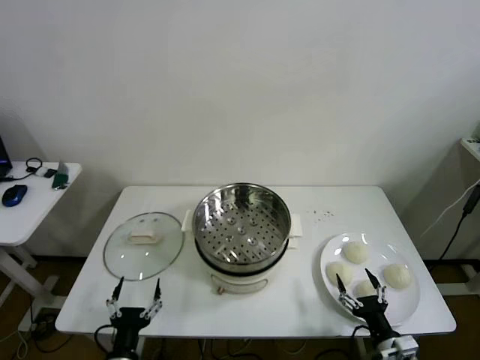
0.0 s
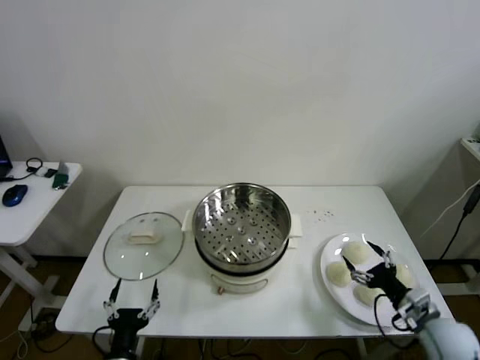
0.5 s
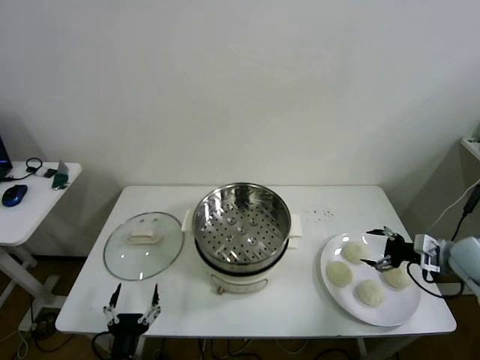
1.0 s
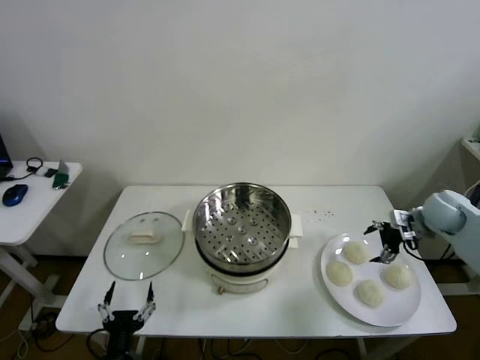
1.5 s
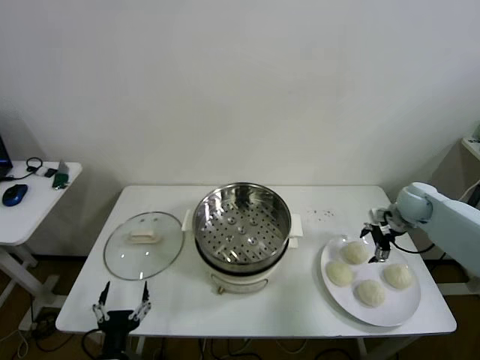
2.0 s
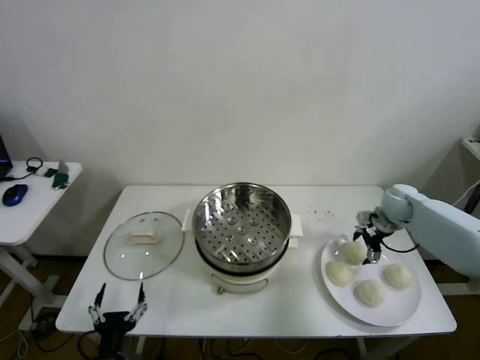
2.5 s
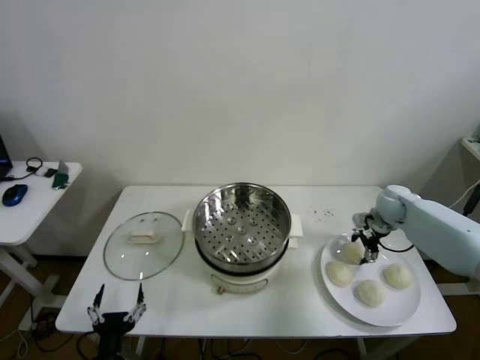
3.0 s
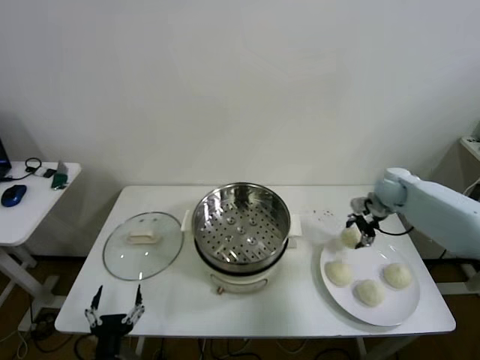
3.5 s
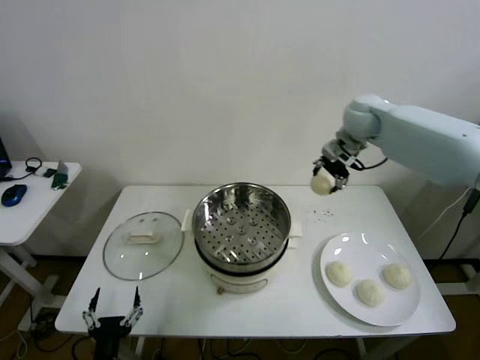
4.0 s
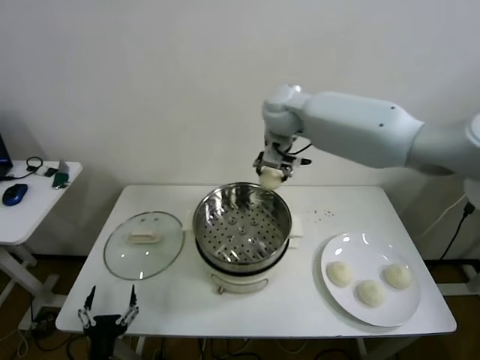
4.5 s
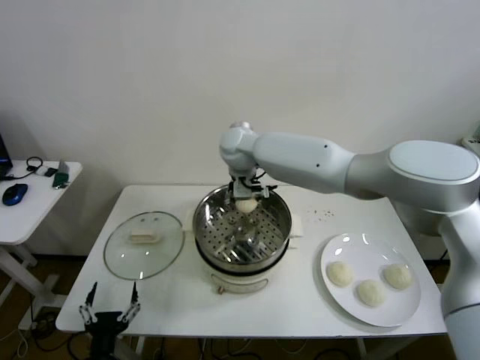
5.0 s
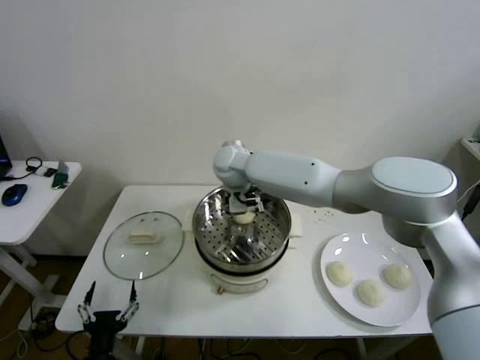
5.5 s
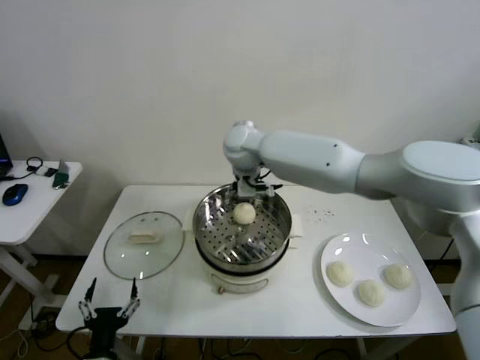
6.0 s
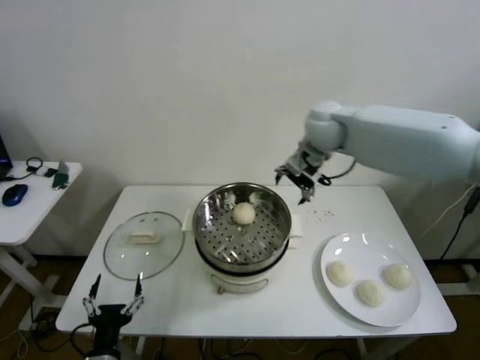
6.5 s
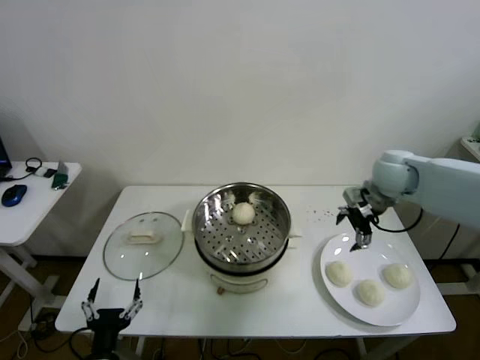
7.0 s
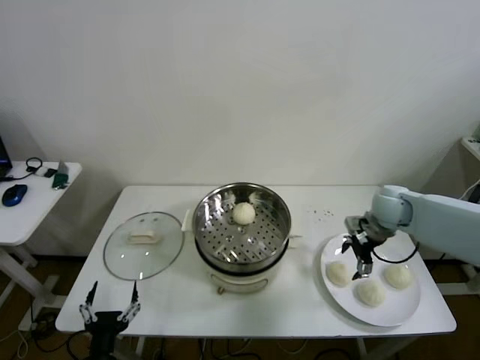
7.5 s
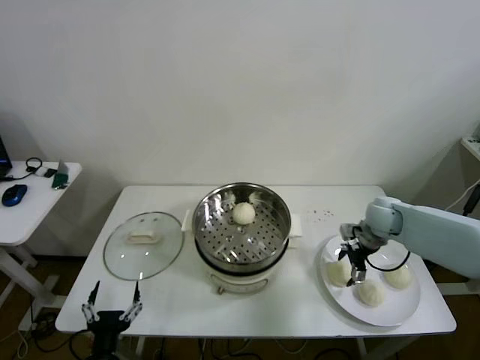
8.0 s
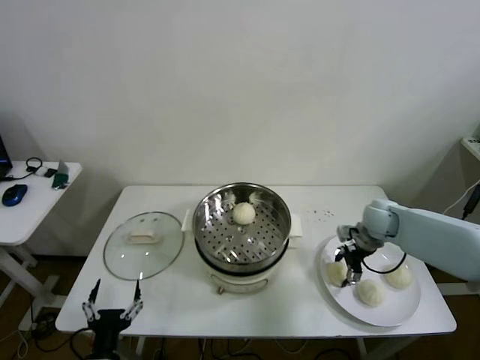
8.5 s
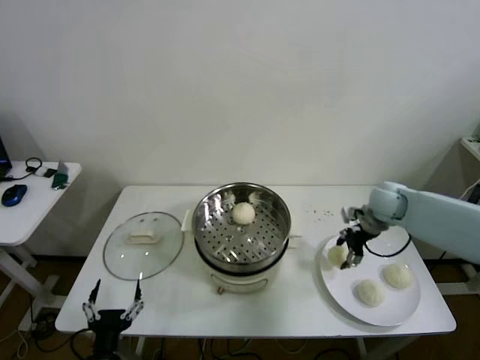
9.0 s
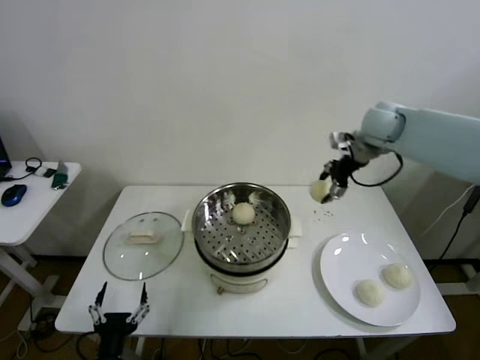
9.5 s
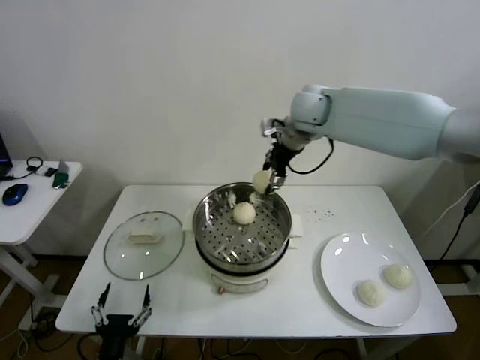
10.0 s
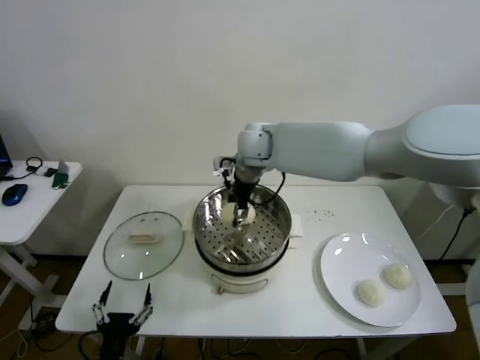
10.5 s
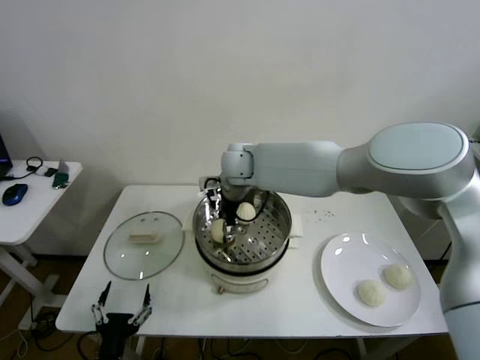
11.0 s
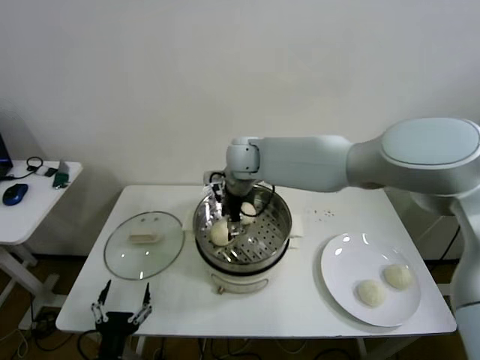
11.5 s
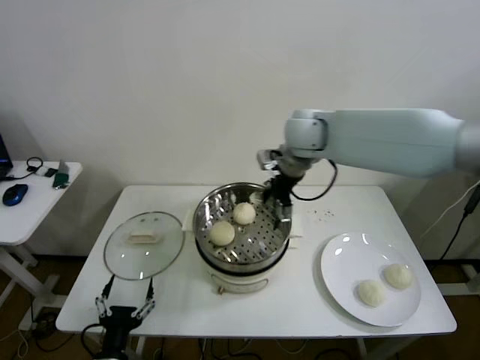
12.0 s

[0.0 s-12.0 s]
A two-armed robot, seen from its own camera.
Step, 0.0 to 3.0 s: Grasp the baozi in the plate with right gripper.
Step, 3.5 to 5.5 s: Place the baozi on the steamer with right gripper.
Step, 6.0 to 8.5 s: Grasp the baozi in the plate with right gripper.
Step, 9.0 to 11.0 s: Place the baozi on the steamer with right gripper.
2.0 to 4.0 s: The right gripper is displaced upward, to the left and forward by about 30 cm, and closes.
4.0 to 6.0 s: The right gripper shifts some 25 cm to the left, and opens its fingers.
6.0 to 8.0 s: The right gripper travels to the right and downward by about 40 cm.
8.0 to 10.0 s: The right gripper is displaced upward and to the left by about 35 cm, and closes up.
10.0 to 12.0 s: The right gripper travels to the left and back again, roughly 15 cm each way, and opens.

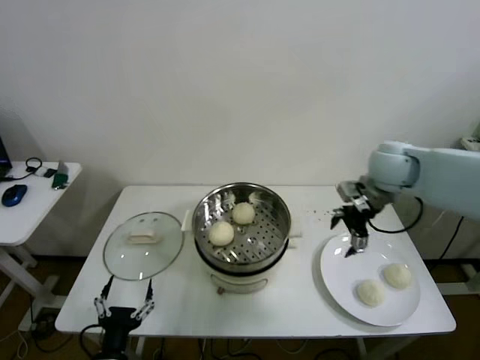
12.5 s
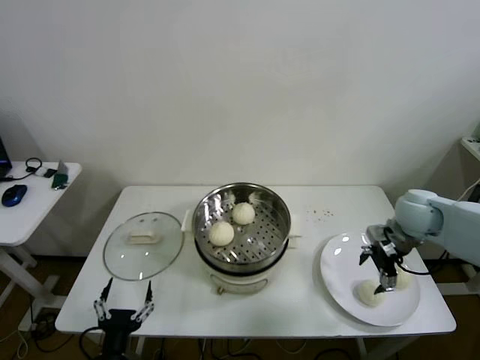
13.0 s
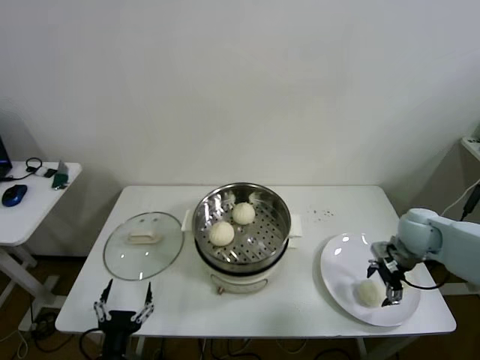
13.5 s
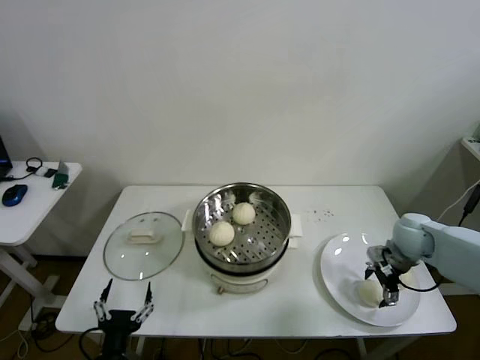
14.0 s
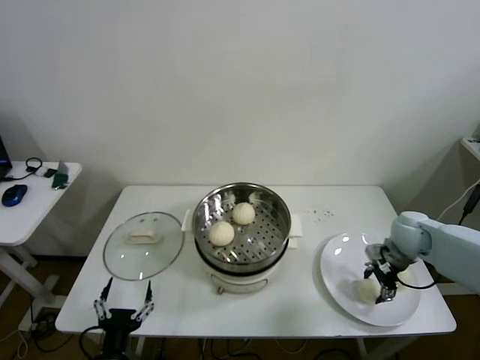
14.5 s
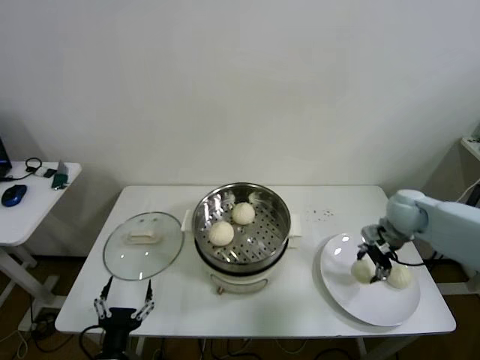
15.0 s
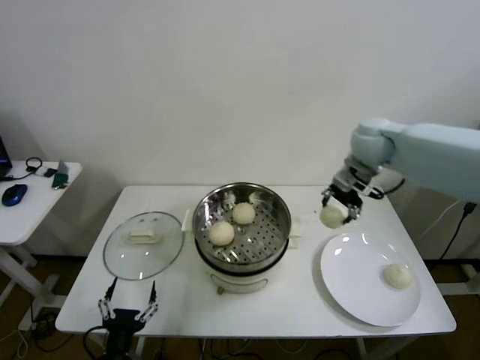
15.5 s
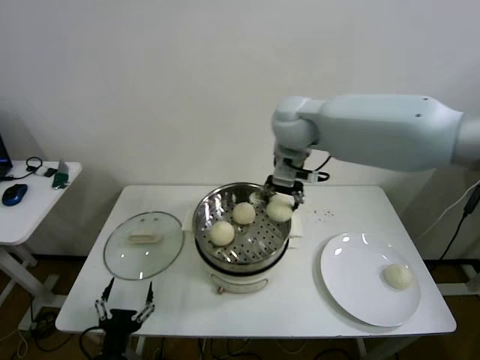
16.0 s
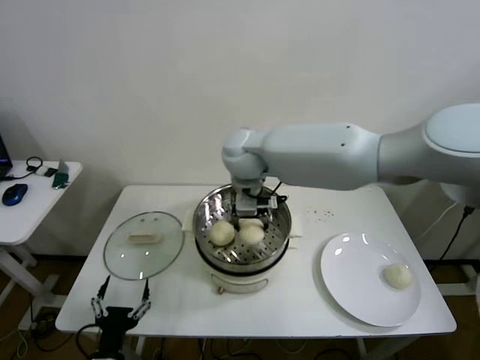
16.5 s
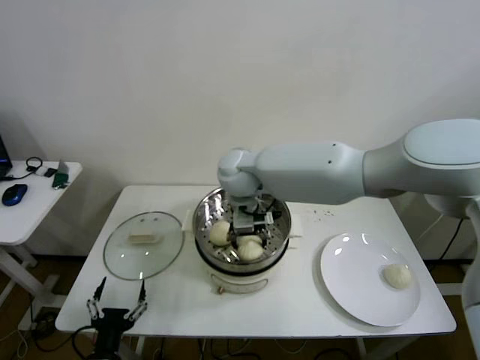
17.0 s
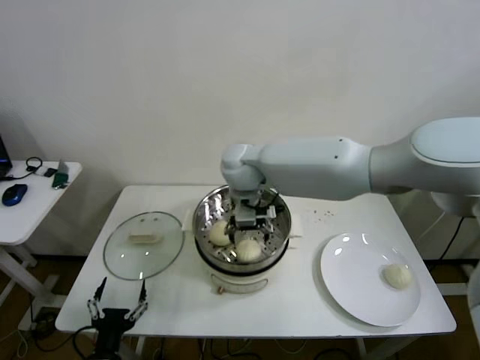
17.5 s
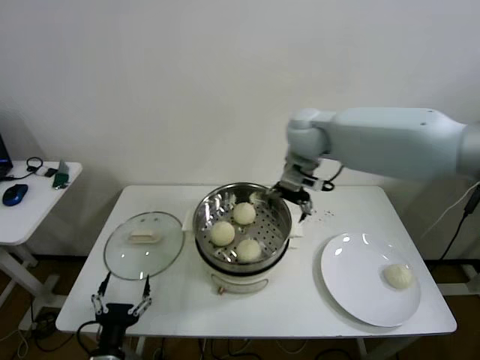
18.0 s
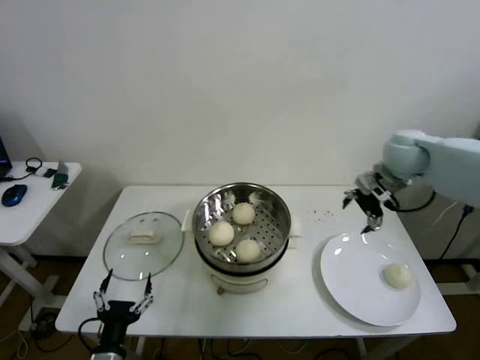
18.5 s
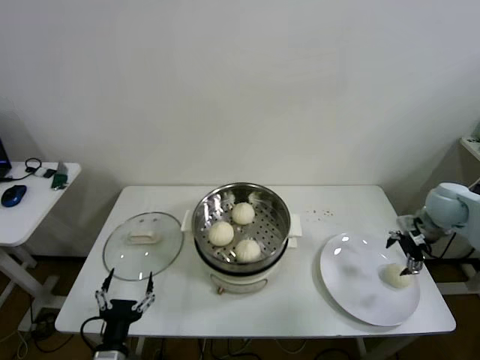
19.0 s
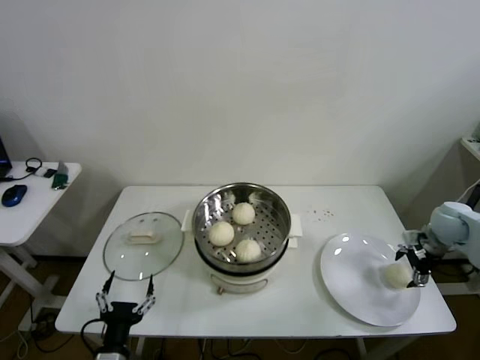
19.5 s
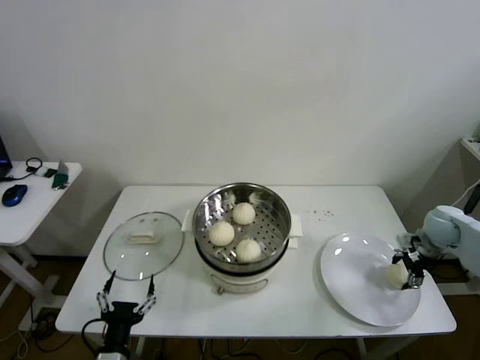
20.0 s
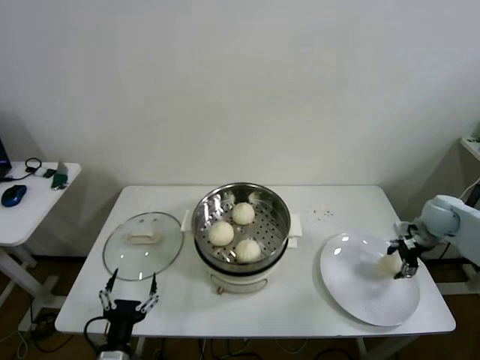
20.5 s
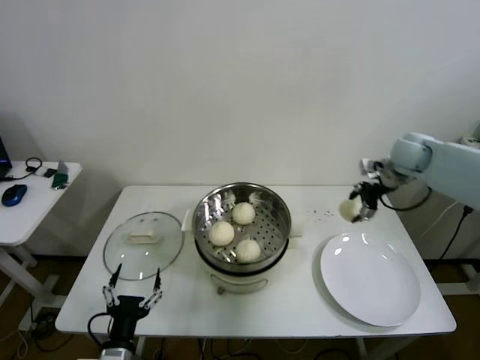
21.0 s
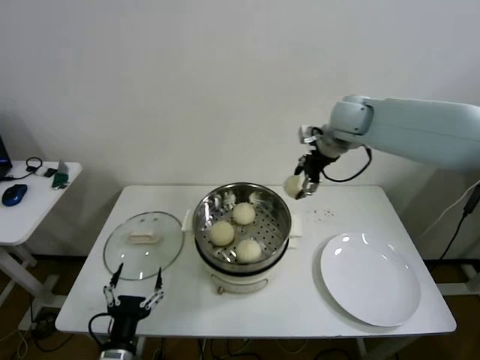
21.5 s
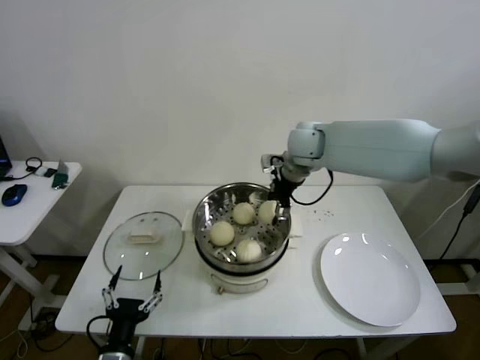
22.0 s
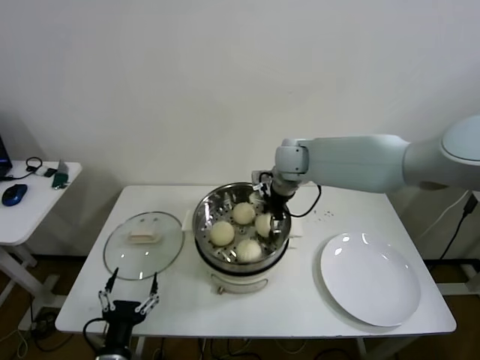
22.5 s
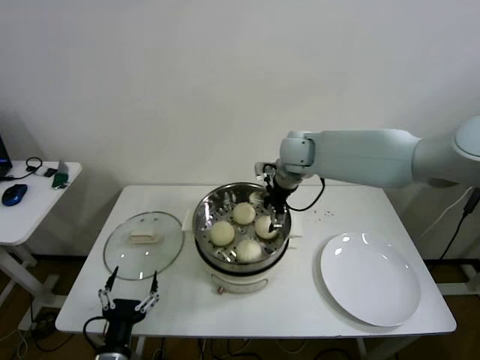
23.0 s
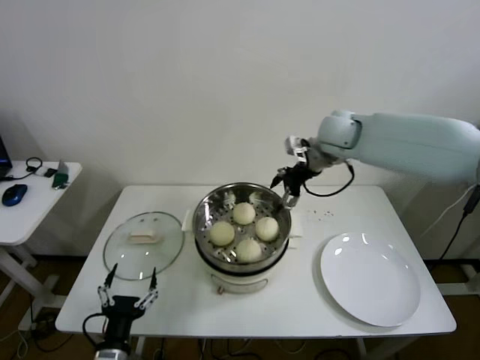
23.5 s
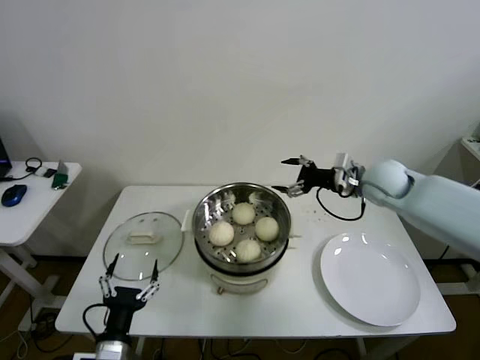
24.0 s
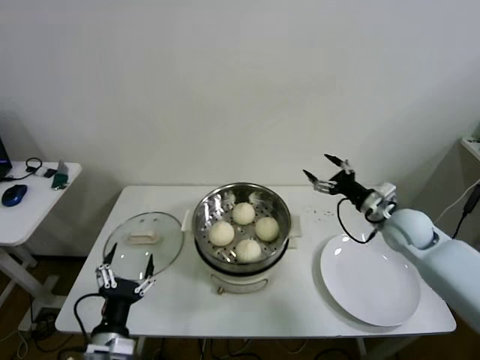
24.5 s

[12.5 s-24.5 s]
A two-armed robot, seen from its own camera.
Step, 12.5 to 14.5 s: Grasp the baozi in the plate with right gripper.
Step, 15.0 to 17.0 s: Place the baozi on the steamer with right gripper.
Step, 17.5 to 20.0 s: Grasp the baozi in the plate with right gripper.
Step, 20.5 to 22.5 s: Place the baozi on the steamer with right gripper.
12.5 to 14.5 s: The right gripper shifts some 20 cm downward and to the right, and closes up.
14.5 to 16.5 s: The right gripper is displaced to the left and upward by approximately 40 cm.
16.5 to 18.5 s: The right gripper heads to the right, covering approximately 35 cm, and opens.
18.5 to 20.5 s: The right gripper heads downward and to the right, covering some 25 cm, and closes up.
20.5 to 22.5 s: The right gripper shifts approximately 35 cm to the left.
22.5 to 24.5 s: The right gripper heads to the right, backward and downward, covering roughly 30 cm, and opens.

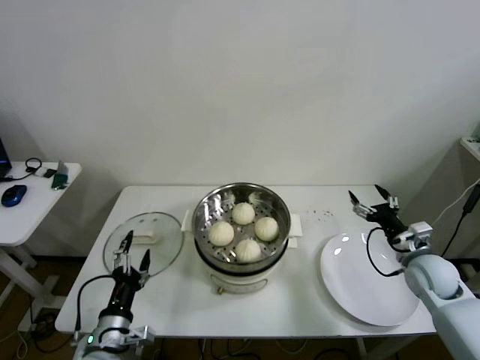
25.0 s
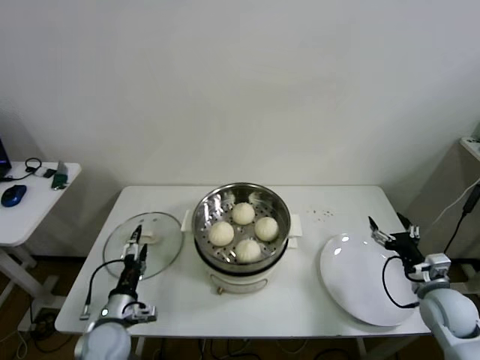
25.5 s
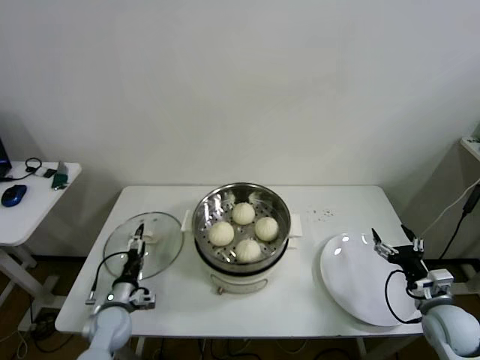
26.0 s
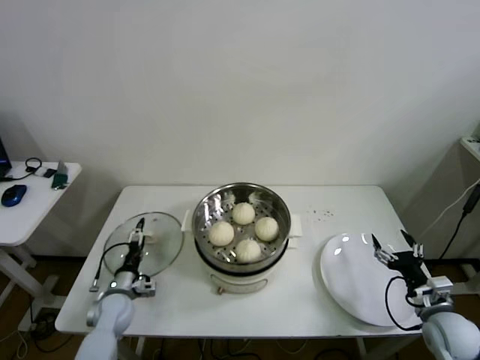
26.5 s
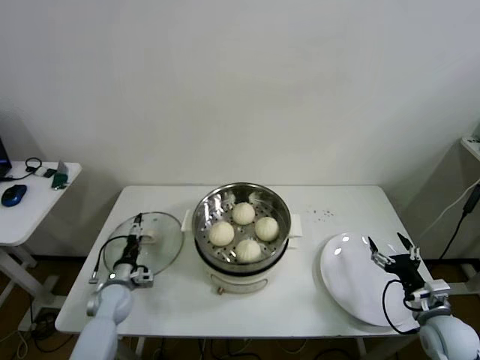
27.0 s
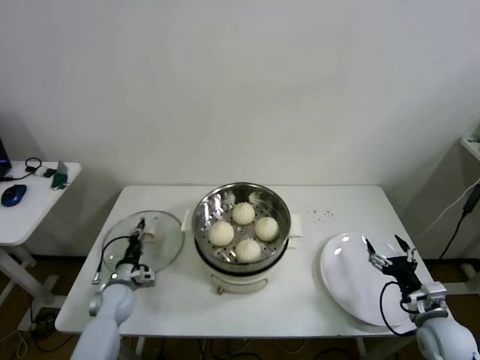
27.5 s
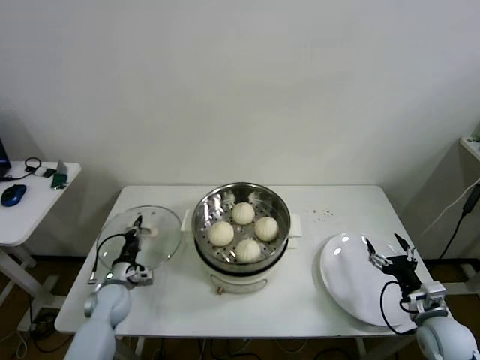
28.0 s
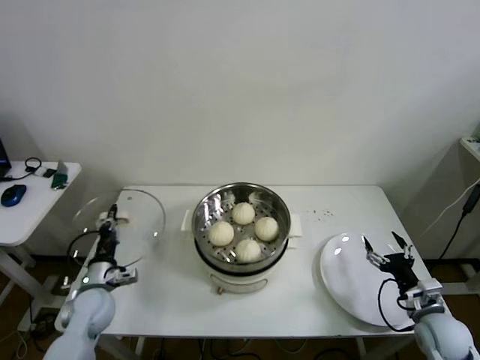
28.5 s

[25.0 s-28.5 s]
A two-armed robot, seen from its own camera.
Step, 25.0 to 27.5 s: Grasp the pot lid with left gripper.
25.0 to 27.0 s: The right gripper goes some 15 cm backward and downward; the left gripper goes approximately 25 cm forward, downward and to the left.
27.0 to 28.5 s: The left gripper moves upward, about 5 cm, and closes its fingers.
